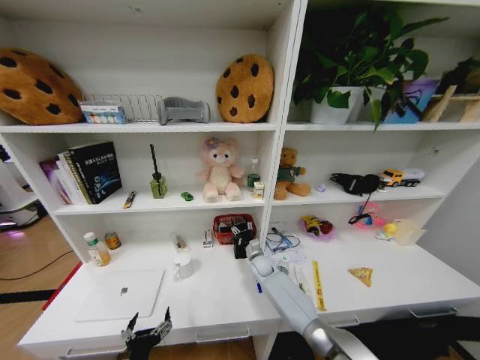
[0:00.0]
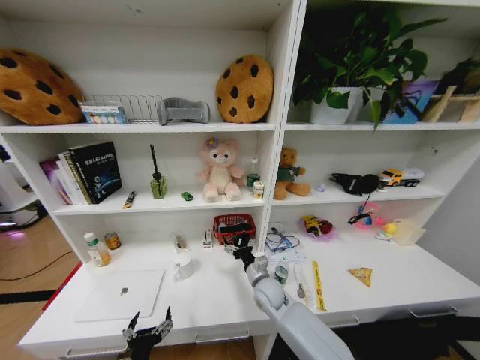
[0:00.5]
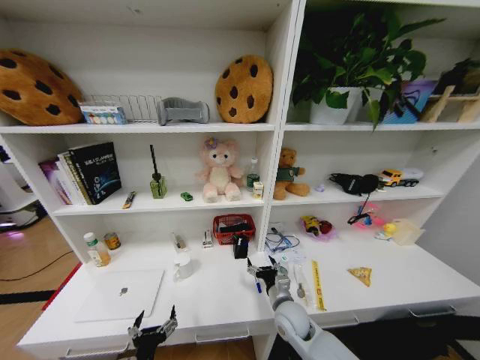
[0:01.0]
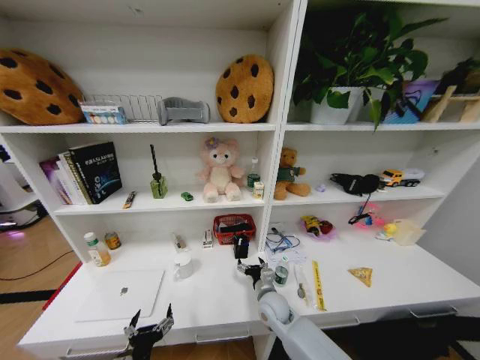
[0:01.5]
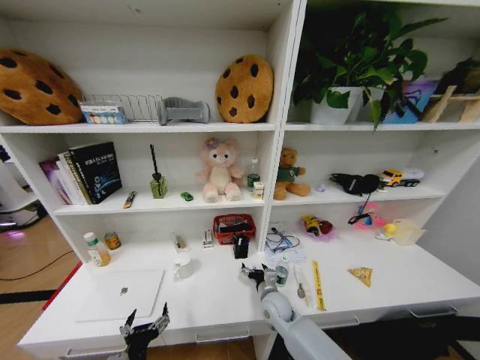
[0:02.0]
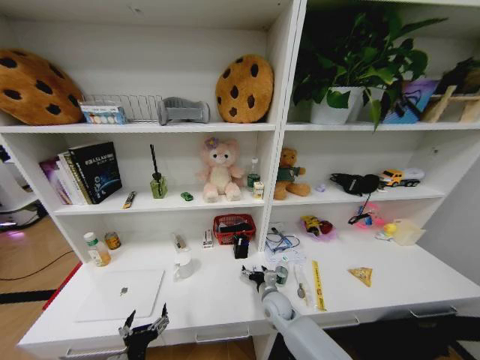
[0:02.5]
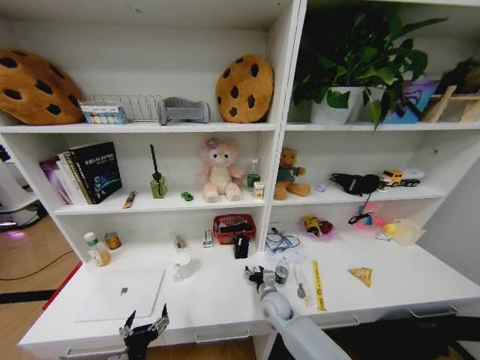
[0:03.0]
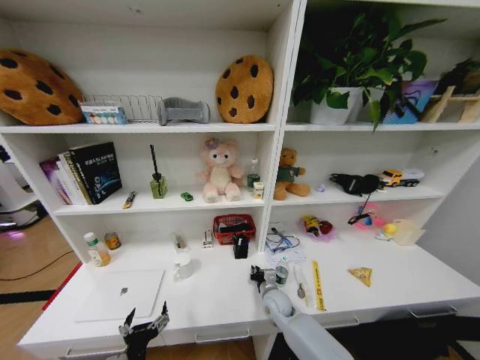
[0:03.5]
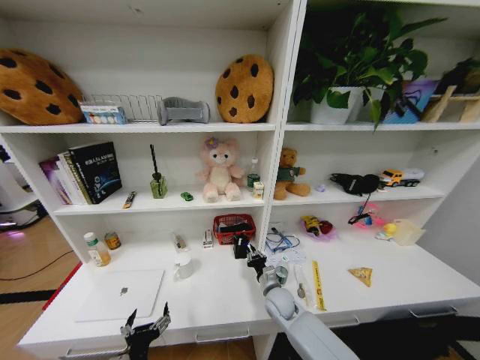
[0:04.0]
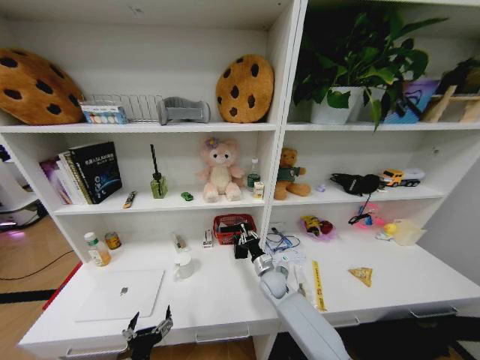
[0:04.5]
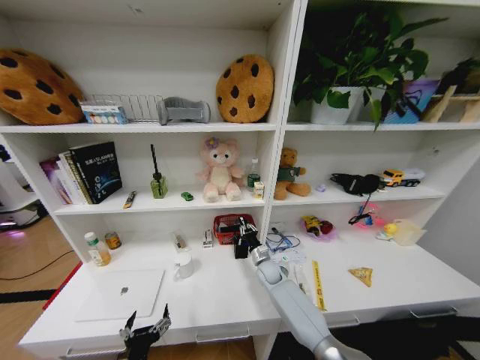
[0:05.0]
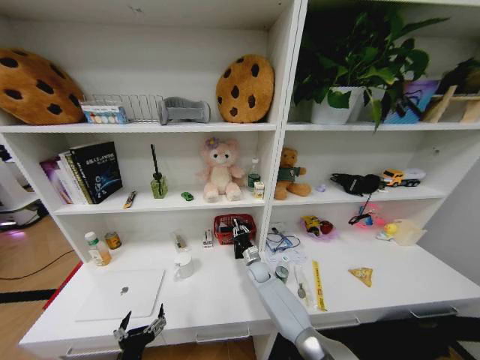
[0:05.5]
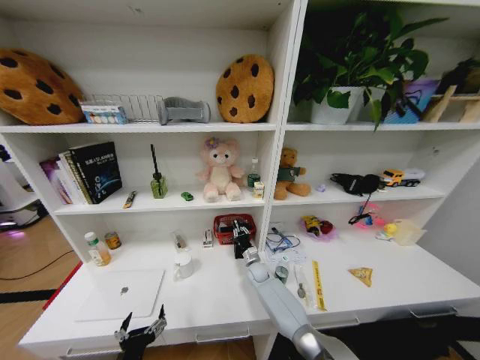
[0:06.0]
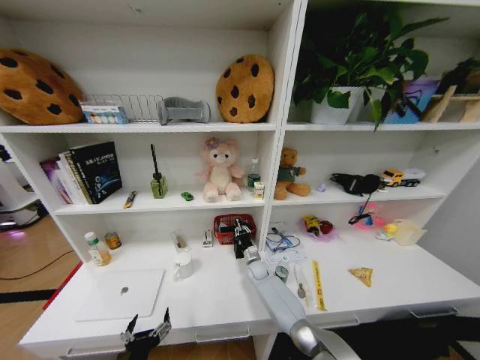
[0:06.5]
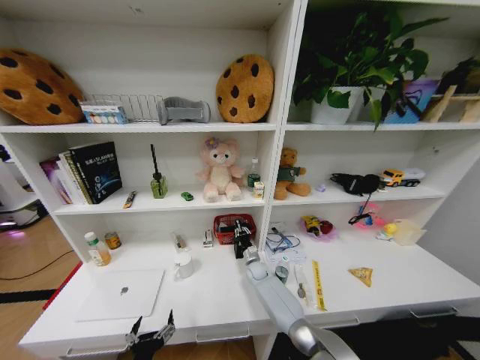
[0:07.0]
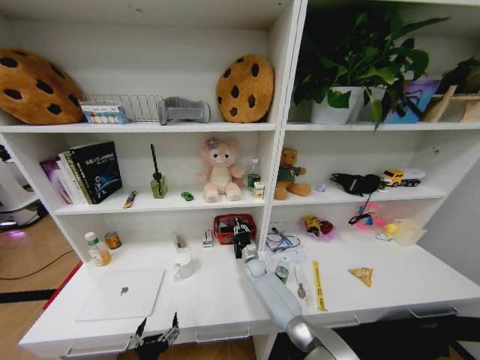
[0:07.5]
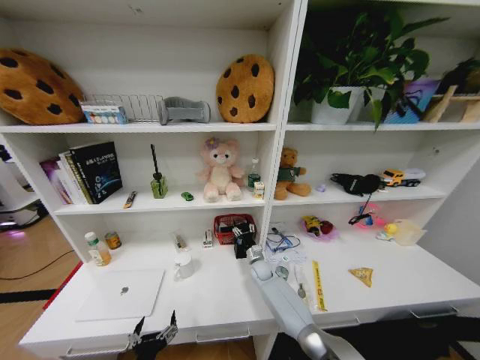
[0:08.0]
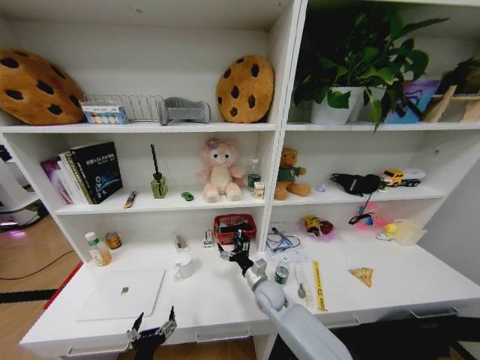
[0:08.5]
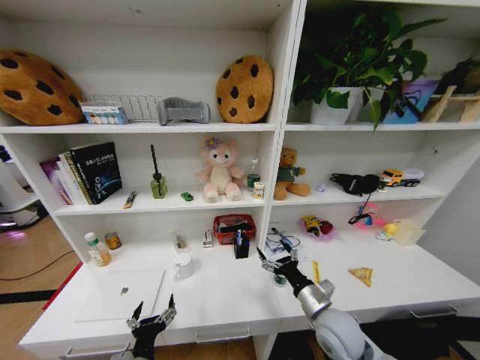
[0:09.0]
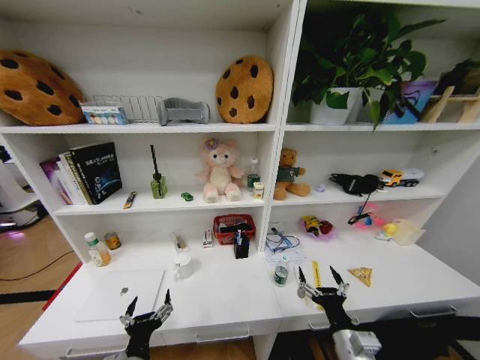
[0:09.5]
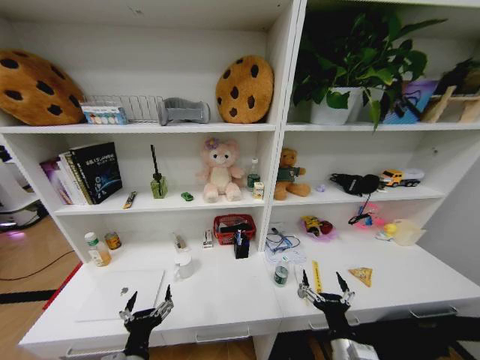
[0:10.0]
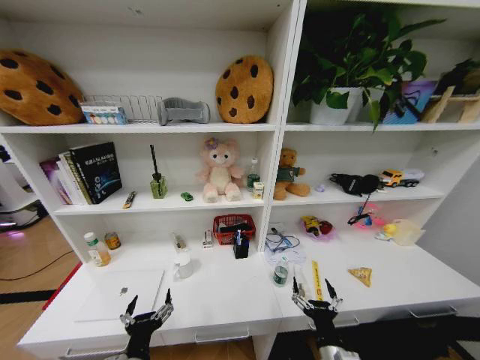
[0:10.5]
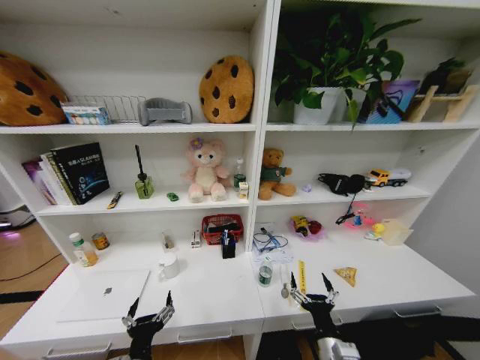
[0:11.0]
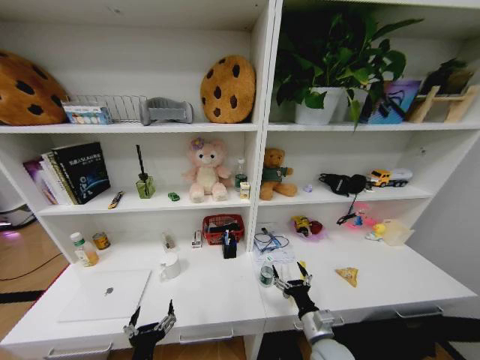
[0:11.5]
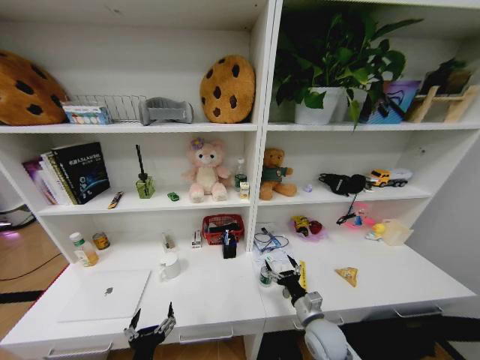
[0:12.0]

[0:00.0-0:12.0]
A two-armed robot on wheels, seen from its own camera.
Task of the whole recording: Organize the objects on the table.
0.0 to 2.0 s: The right gripper heads backward, covering approximately 15 cm, and opens its fingers.
2.0 to 4.0 s: The right gripper closes.
4.0 to 6.0 s: The right gripper heads forward and downward, covering some 15 cm.
6.0 to 8.0 s: The right gripper opens its fingers.
8.0 to 10.0 s: The left gripper heads upward, covering some 5 cm, while the right gripper travels backward by roughly 35 cm.
10.0 to 12.0 s: The right gripper heads forward and downward, covering about 15 cm.

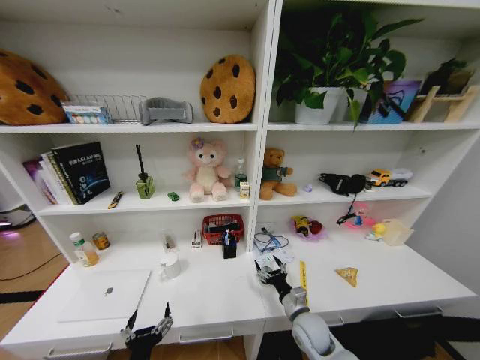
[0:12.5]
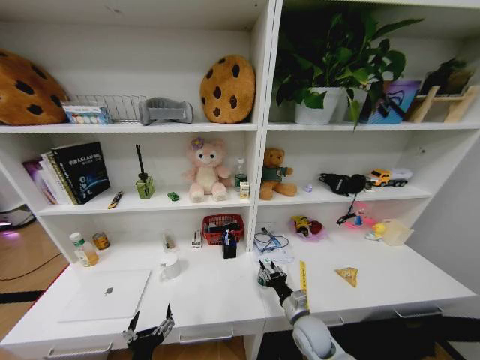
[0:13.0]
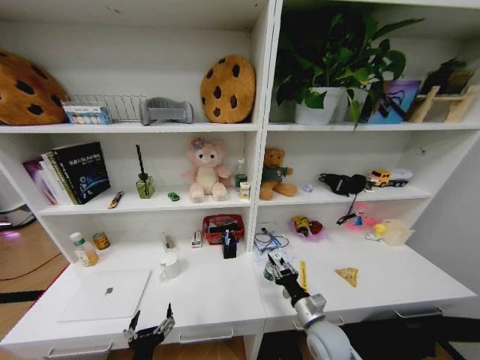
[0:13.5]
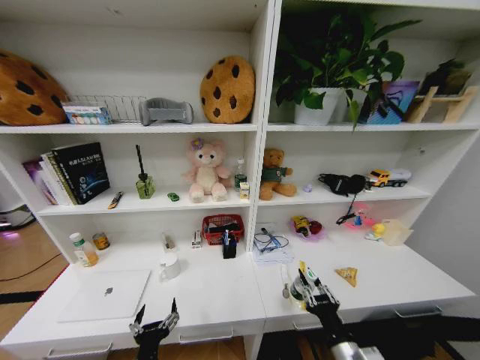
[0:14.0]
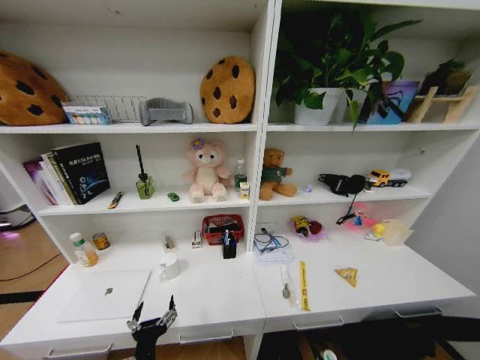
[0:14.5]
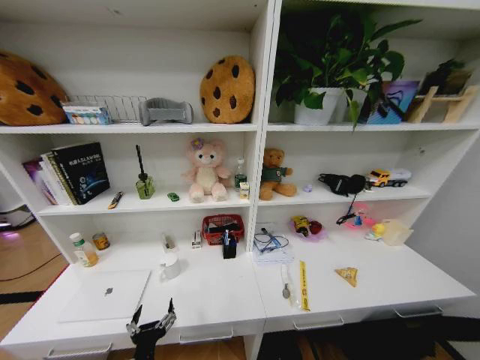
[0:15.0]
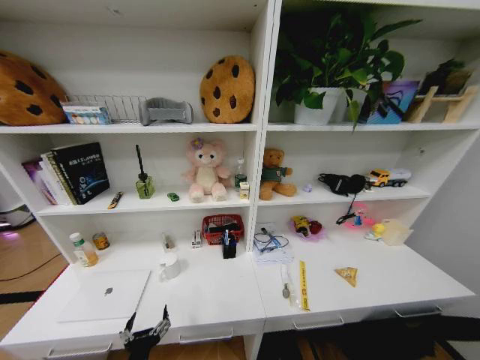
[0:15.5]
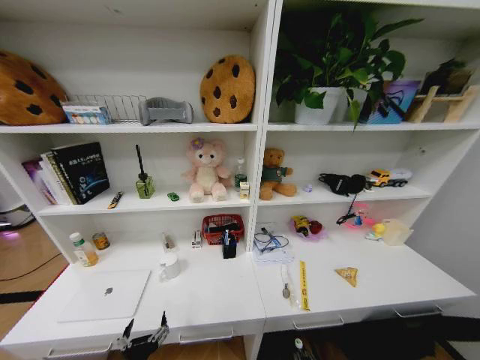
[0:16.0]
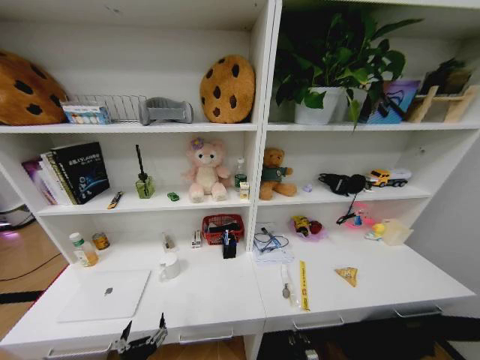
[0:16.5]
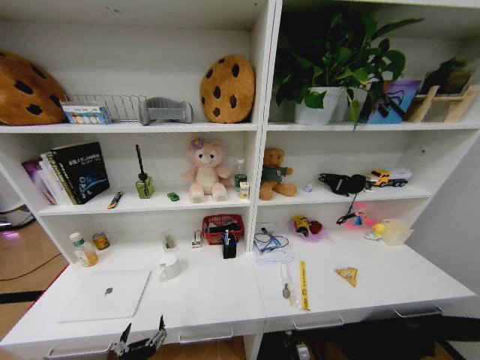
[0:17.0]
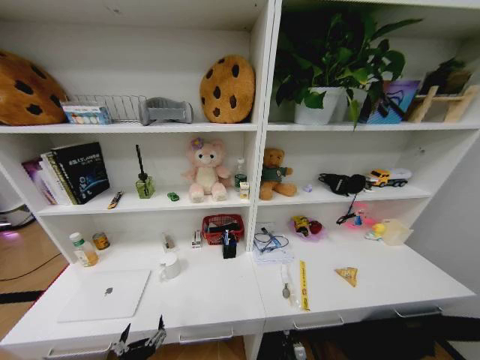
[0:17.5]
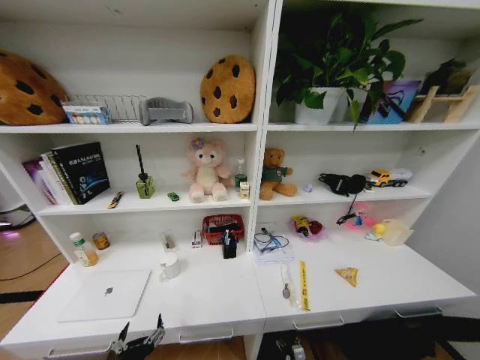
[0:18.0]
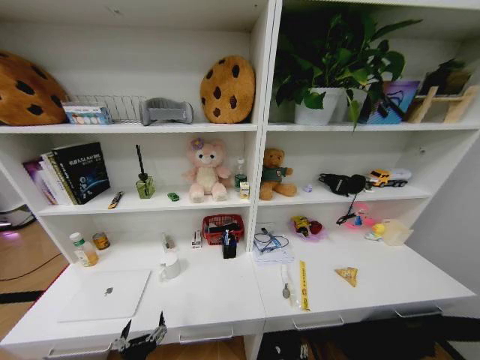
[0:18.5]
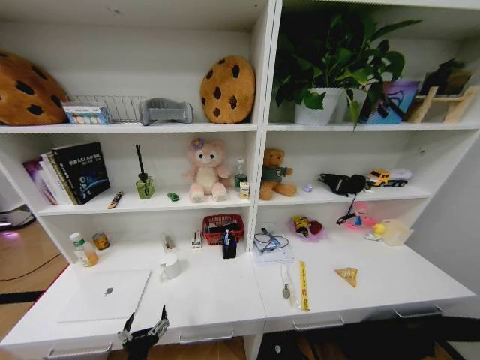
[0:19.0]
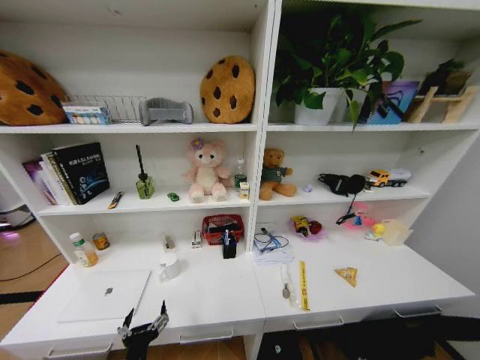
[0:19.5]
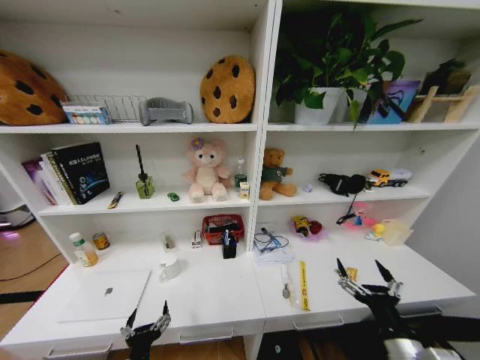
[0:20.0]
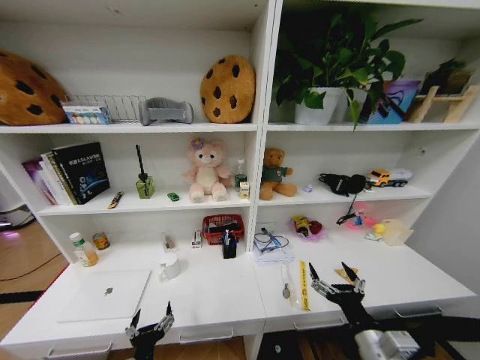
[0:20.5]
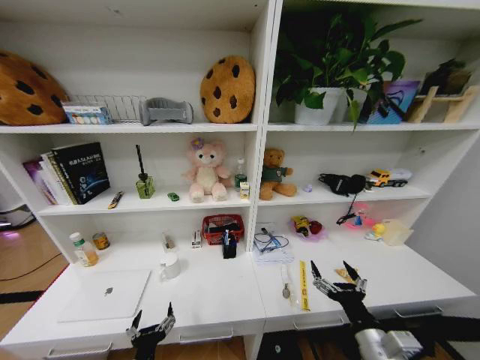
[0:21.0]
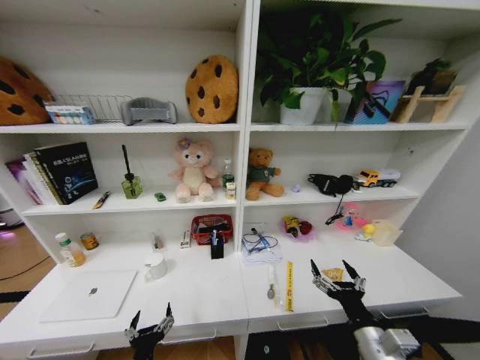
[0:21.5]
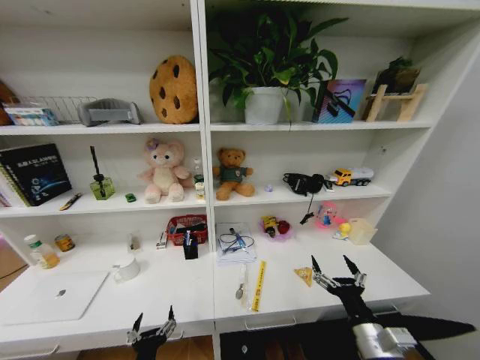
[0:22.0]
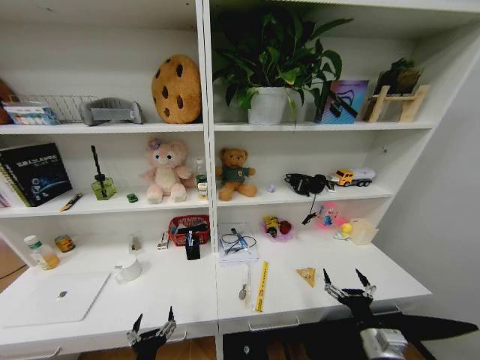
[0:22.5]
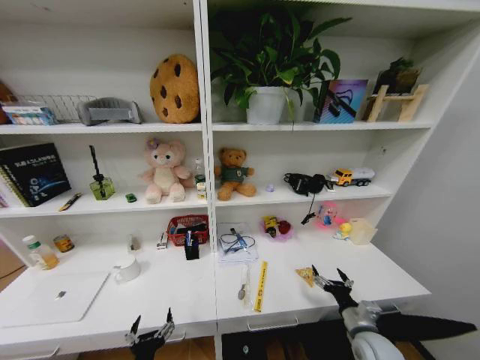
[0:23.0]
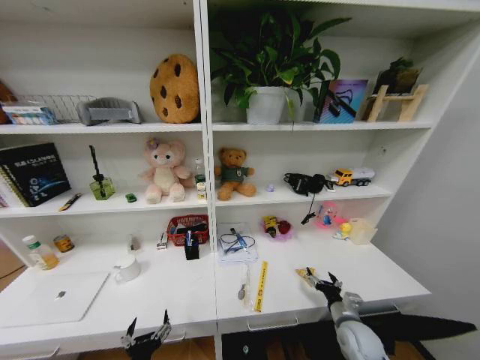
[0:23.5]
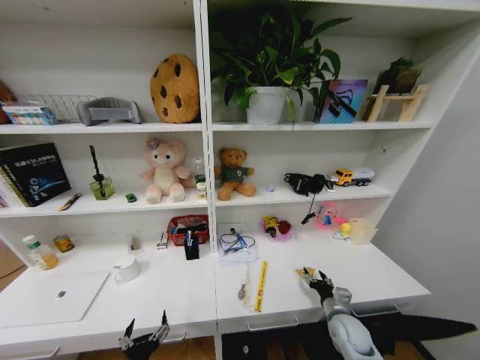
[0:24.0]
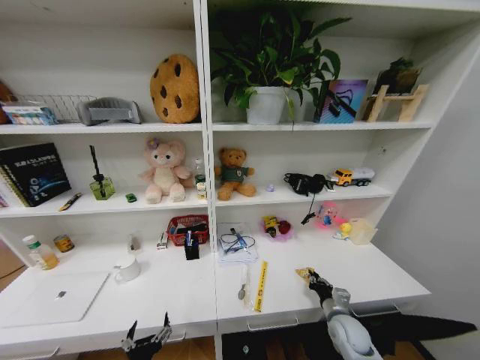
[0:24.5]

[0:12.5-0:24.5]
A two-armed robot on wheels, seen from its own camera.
Task of the whole recording: Organize the objects on the table.
12.5 to 14.5 s: The right gripper goes roughly 30 cm backward, and closes its fingers.
14.5 to 16.5 s: The right gripper shifts about 35 cm downward and forward.
18.5 to 20.5 s: The right gripper travels upward by approximately 40 cm.
20.5 to 22.5 s: The right gripper is displaced downward and to the right by roughly 10 cm.
22.5 to 24.5 s: The right gripper moves forward and downward, about 15 cm, and closes its fingers.

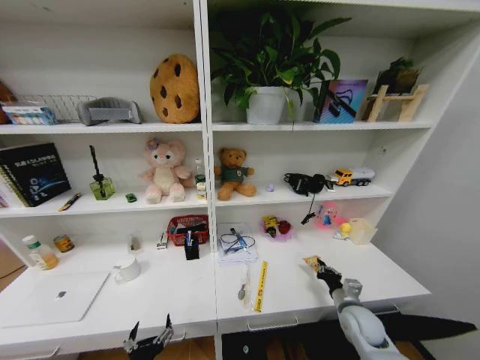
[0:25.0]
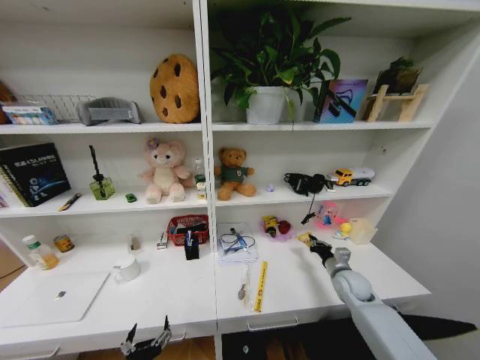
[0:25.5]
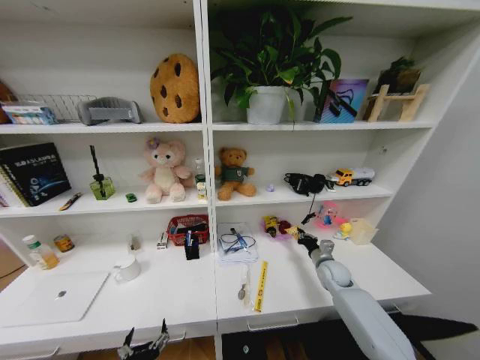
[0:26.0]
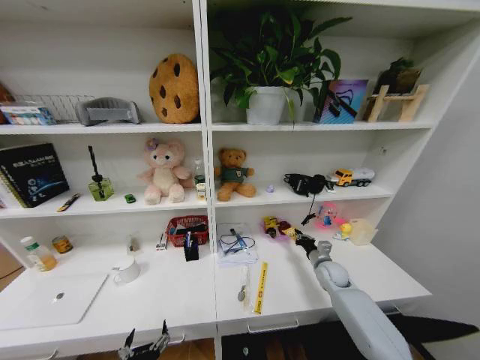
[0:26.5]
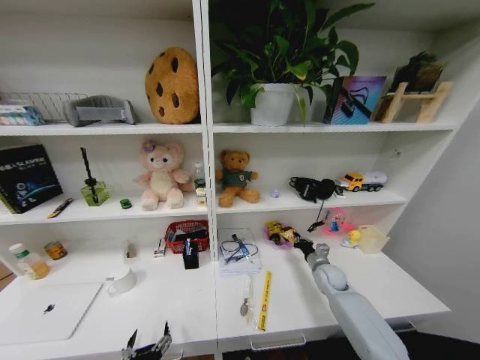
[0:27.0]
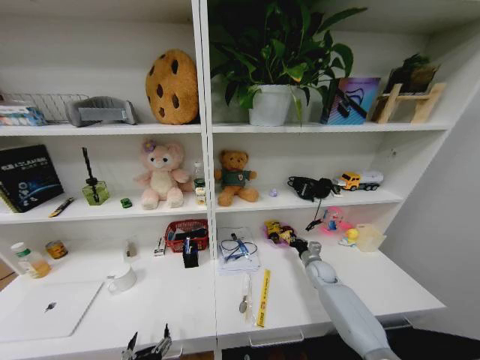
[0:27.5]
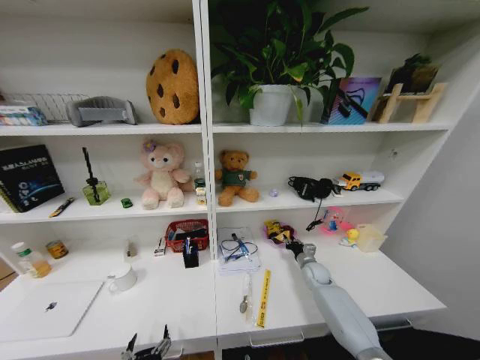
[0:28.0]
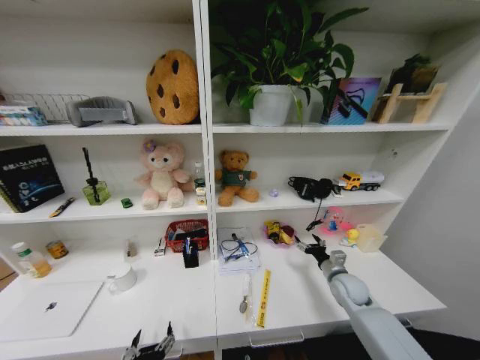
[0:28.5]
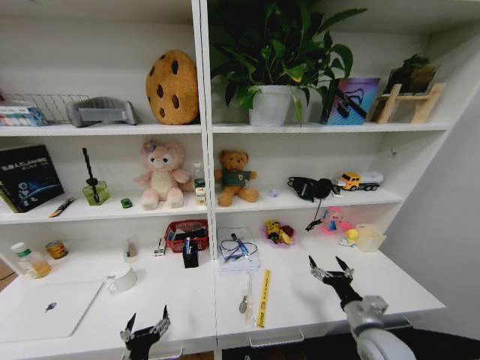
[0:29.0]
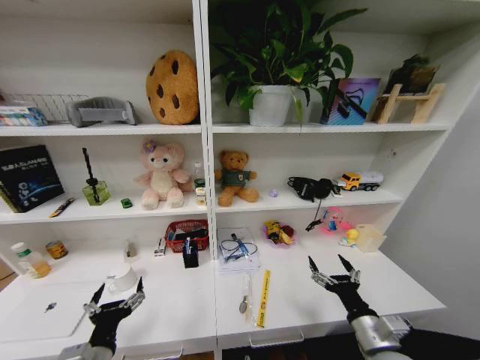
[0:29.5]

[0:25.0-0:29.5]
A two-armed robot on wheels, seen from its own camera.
Task of the whole recording: Organize the objects on the table.
25.0 to 27.0 s: The right gripper heads forward, covering approximately 15 cm.
27.0 to 29.5 s: The left gripper moves upward and to the left, roughly 10 cm. The right gripper goes some 25 cm backward, and opens its fingers.
